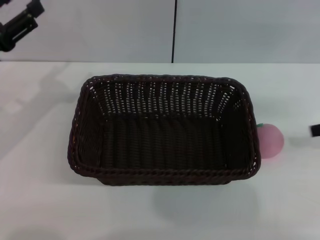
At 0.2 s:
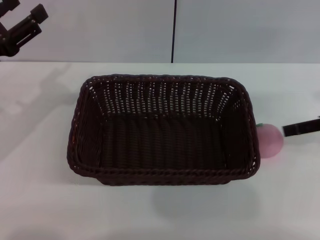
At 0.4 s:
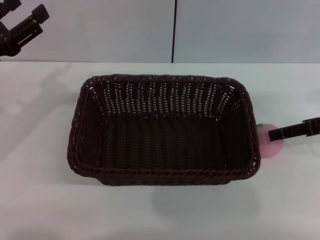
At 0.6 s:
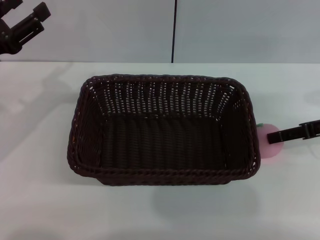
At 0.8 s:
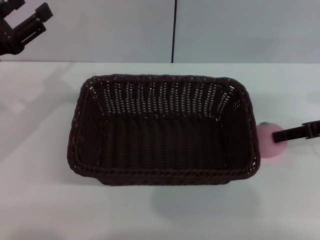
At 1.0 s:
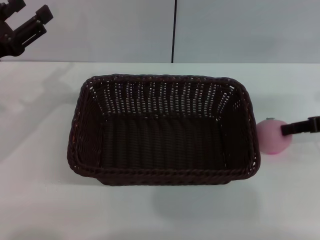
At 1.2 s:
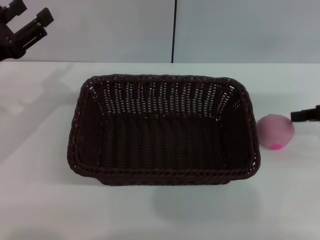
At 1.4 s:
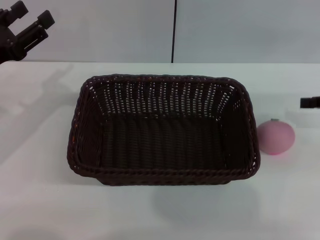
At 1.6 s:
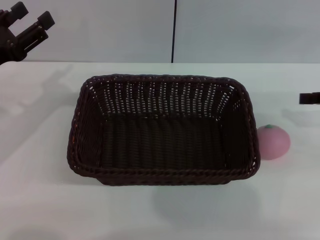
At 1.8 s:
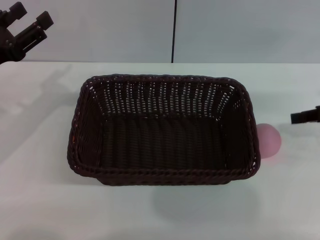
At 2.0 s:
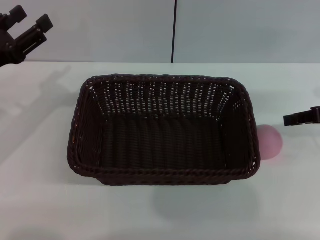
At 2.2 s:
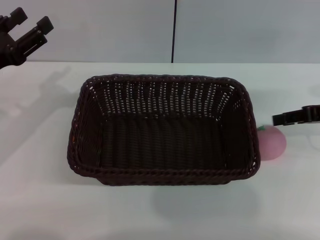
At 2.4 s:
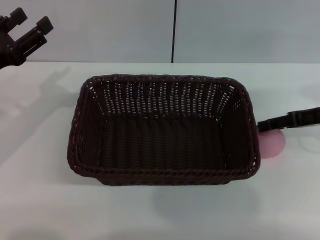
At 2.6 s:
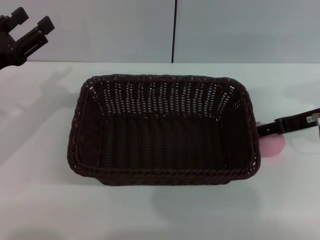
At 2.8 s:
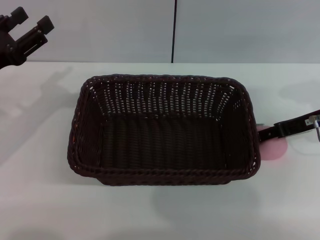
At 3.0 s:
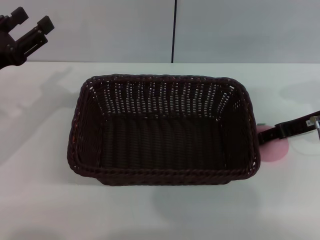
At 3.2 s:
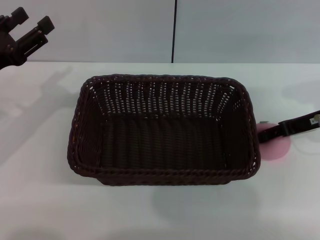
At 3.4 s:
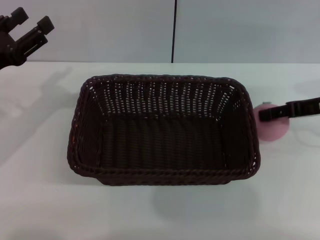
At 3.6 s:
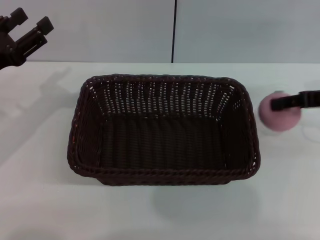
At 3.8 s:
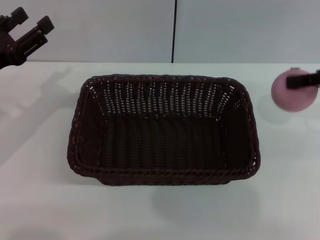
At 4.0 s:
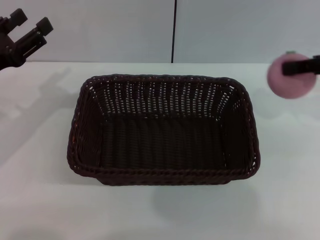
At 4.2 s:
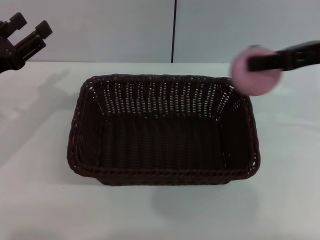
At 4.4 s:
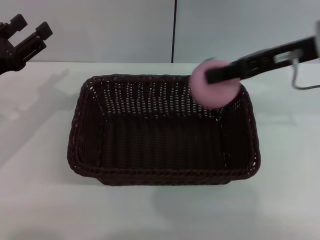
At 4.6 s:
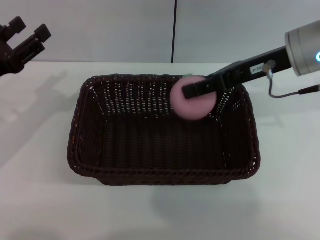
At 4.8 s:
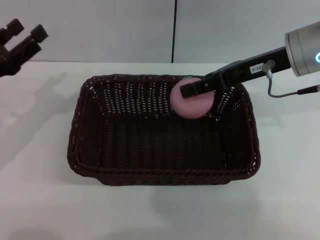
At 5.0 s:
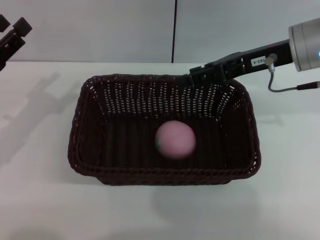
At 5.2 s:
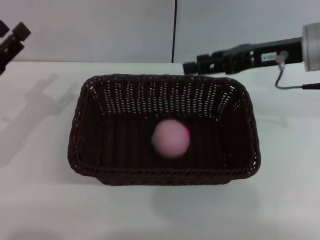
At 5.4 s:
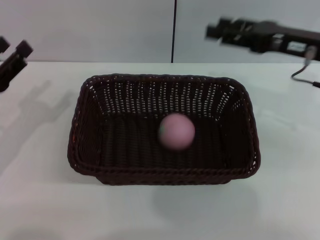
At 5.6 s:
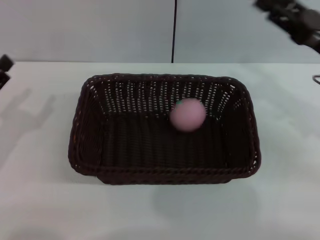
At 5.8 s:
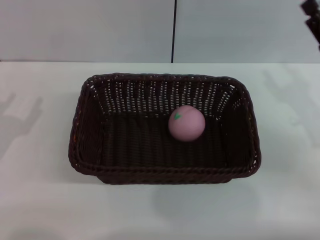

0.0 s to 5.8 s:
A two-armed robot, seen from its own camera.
0.0 to 1.4 s: The right gripper closes its fingers.
1.4 to 2.8 s: The right gripper shifts roughly 5 cm to the left, and opens.
2.8 to 4.4 s: The right gripper shifts some 15 cm upward and to the left, and closes.
4.4 to 5.8 s: The left gripper shifts some 10 cm downward and backward; the right gripper travels downward, to the right and backward by approximately 15 cm, and opens up.
